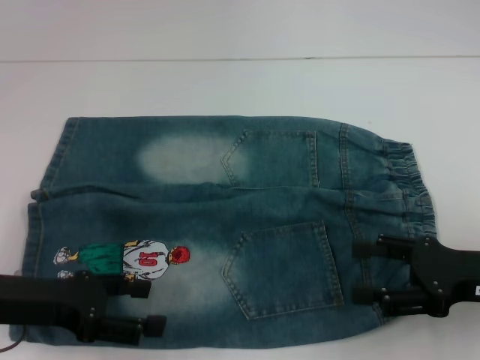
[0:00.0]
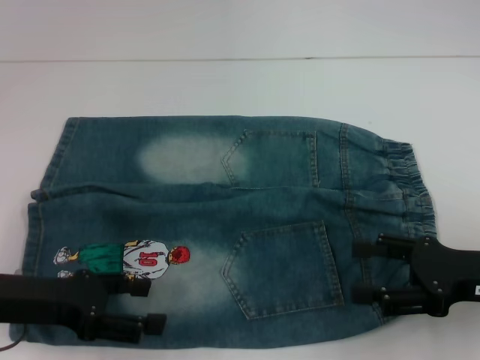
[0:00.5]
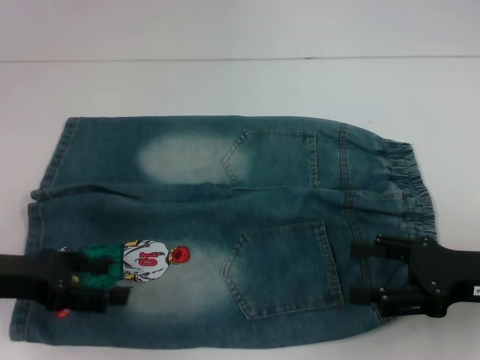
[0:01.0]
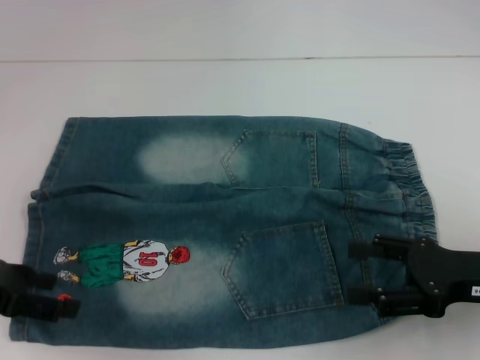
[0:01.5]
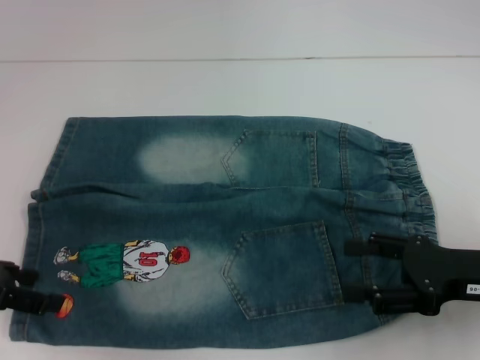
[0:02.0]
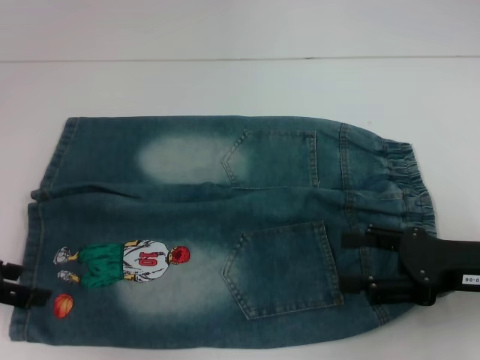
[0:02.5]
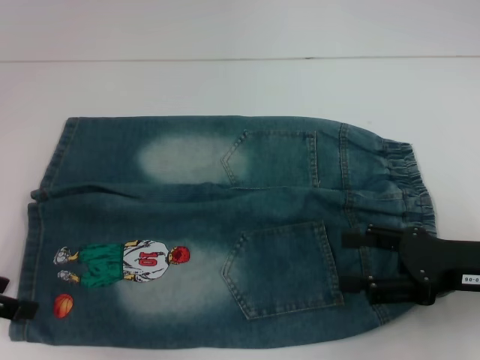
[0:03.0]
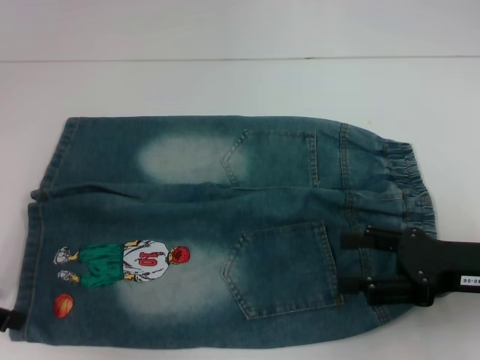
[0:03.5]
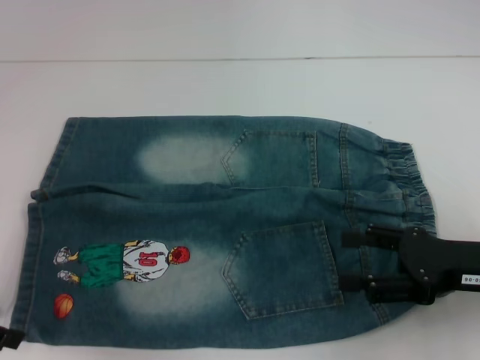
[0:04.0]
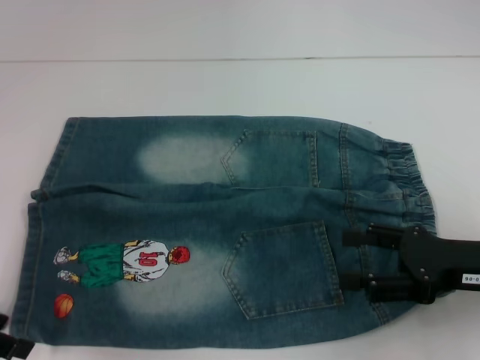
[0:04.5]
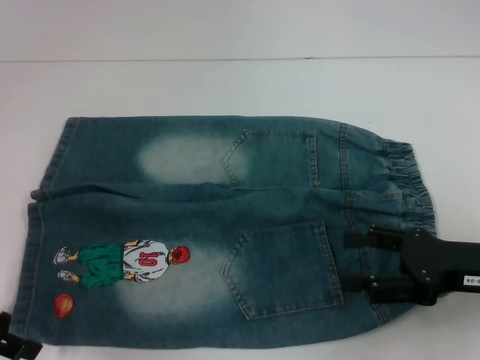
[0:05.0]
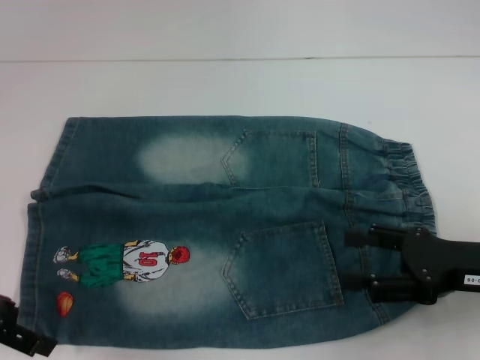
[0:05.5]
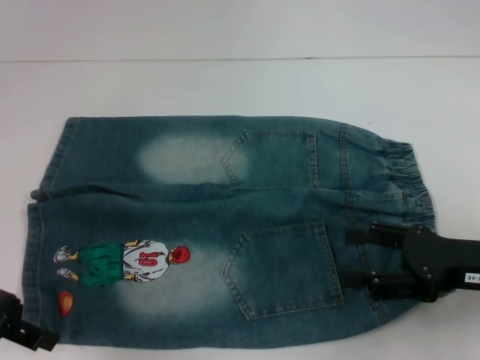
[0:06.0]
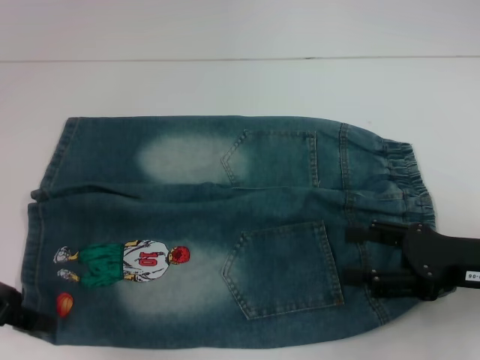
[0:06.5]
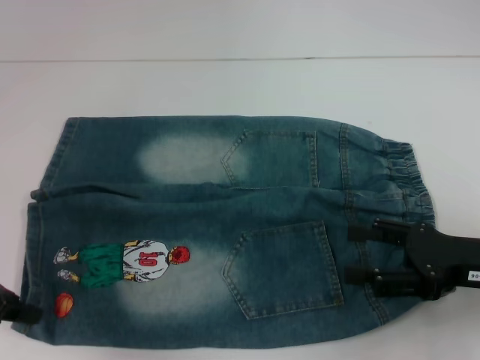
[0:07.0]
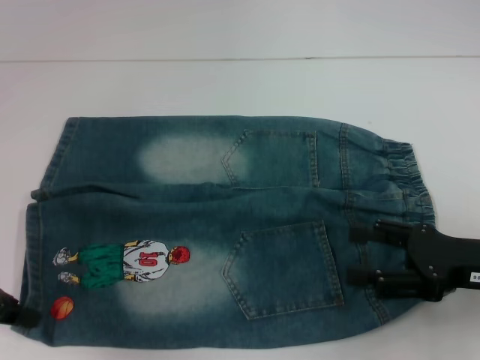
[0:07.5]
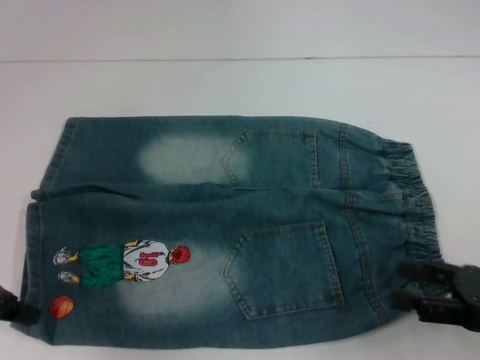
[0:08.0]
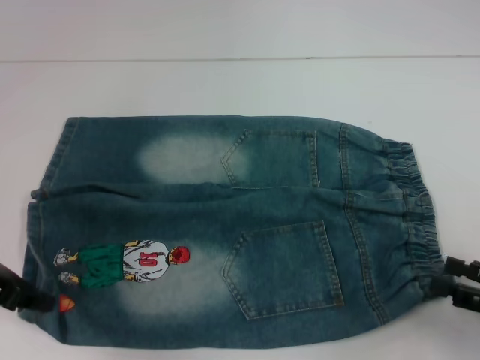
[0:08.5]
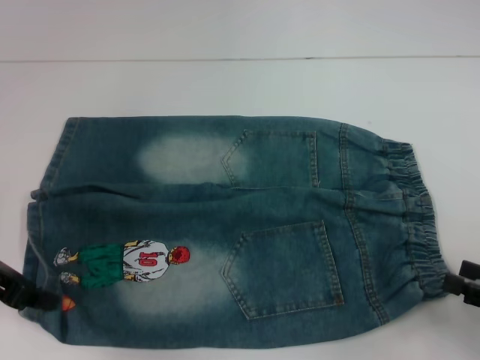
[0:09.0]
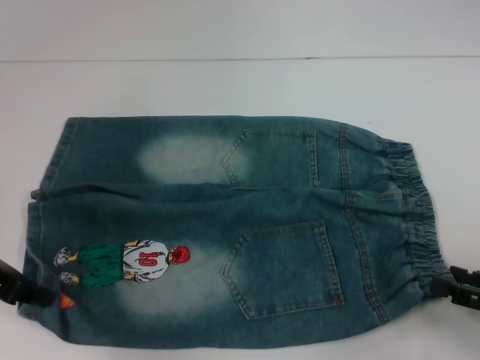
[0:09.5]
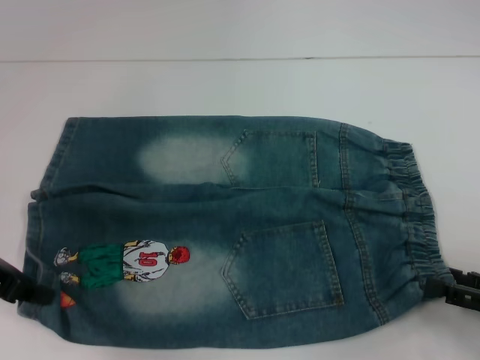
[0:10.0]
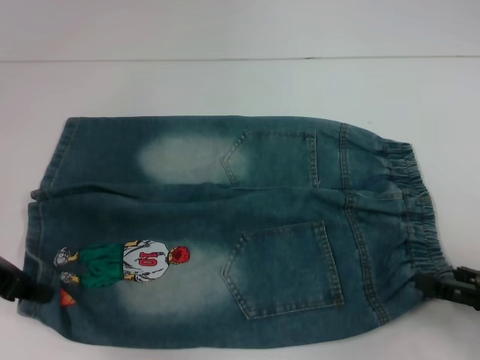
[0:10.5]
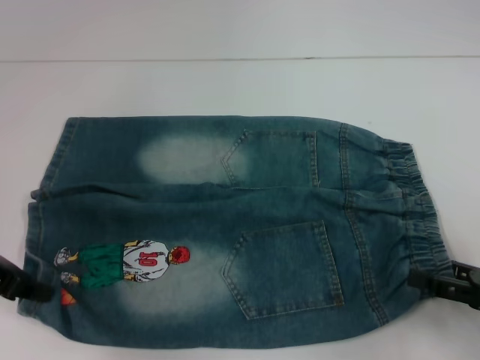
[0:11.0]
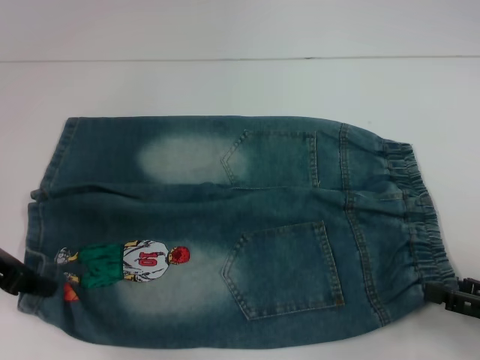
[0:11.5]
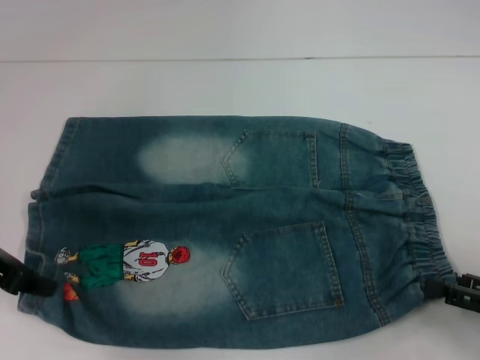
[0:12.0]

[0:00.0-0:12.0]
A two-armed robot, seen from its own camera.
Step, 0:00.0 to 0:06.0: Grab the lower left pant leg with your left hand.
0:00.0 to 0:02.0: The left gripper shifts about 5 cm to the left.
0:02.0 to 0:06.0: The grippers stay close to where they were, moving slightly.
0:06.0 to 0:08.0: The left gripper closes; the right gripper ends up approximately 5 cm from where it was.
0:10.0 to 0:12.0: The grippers make only small movements.

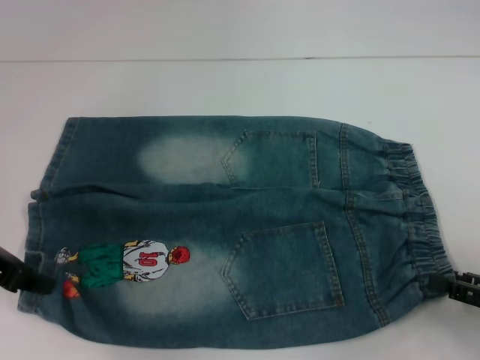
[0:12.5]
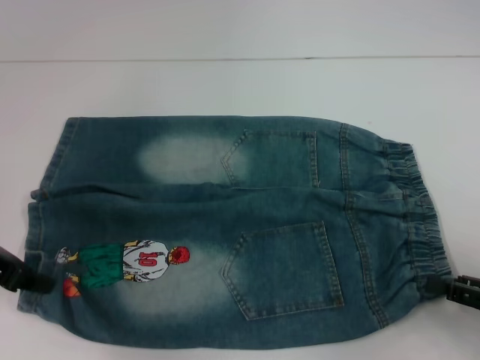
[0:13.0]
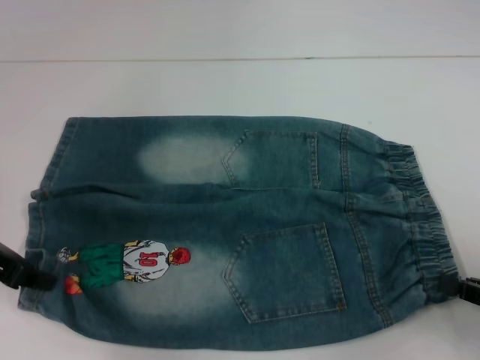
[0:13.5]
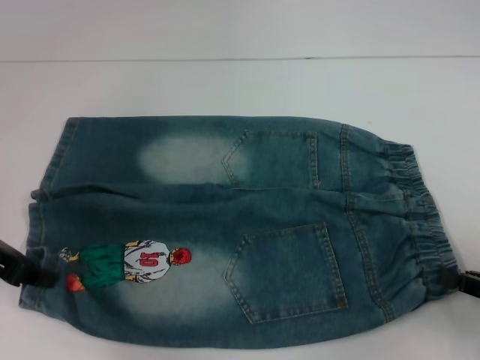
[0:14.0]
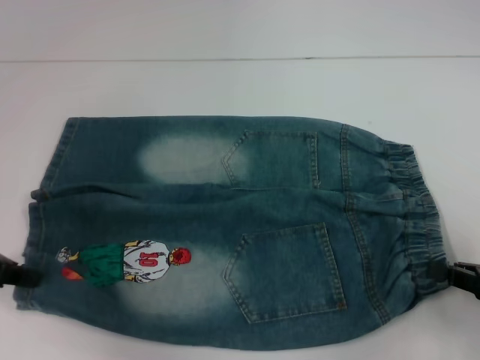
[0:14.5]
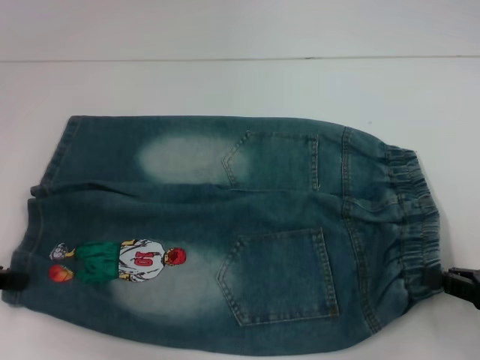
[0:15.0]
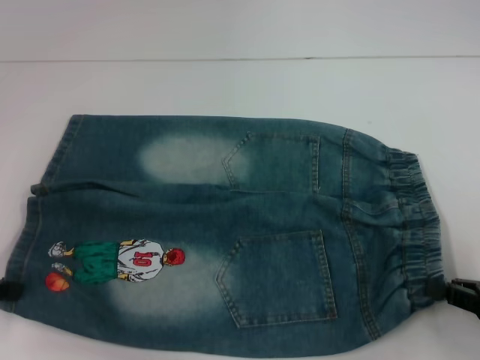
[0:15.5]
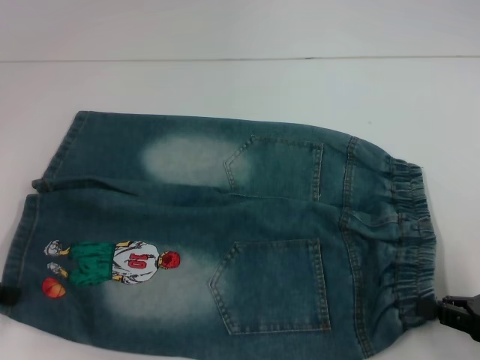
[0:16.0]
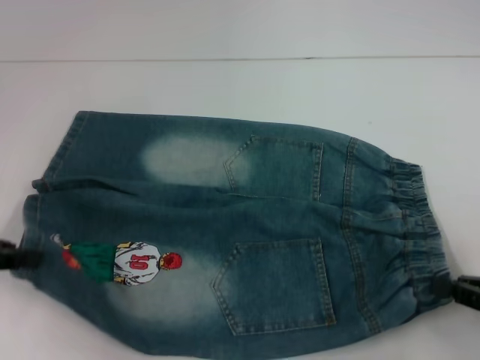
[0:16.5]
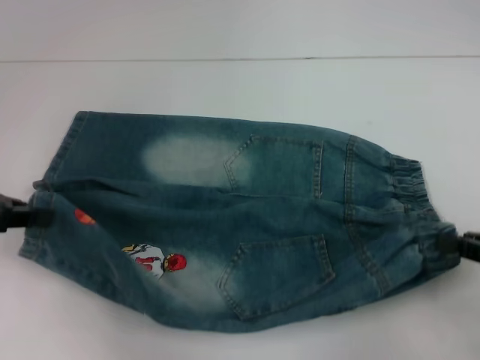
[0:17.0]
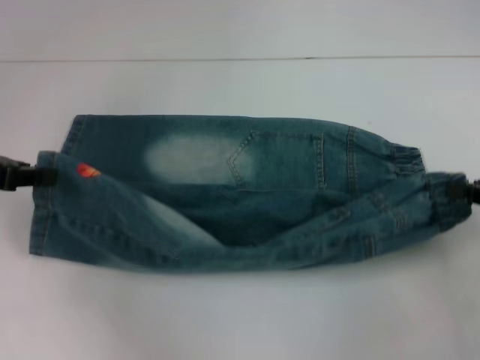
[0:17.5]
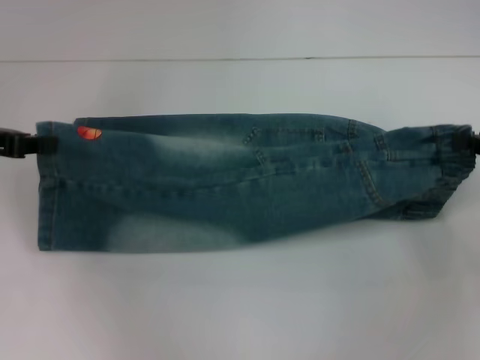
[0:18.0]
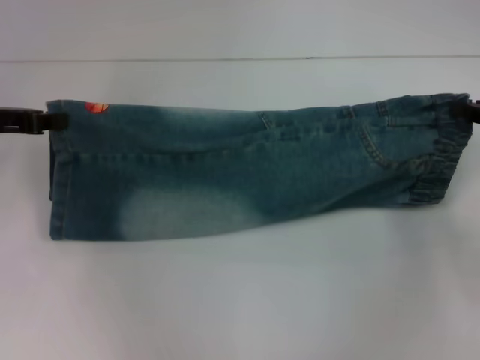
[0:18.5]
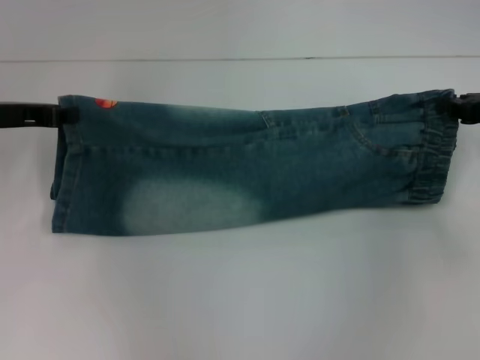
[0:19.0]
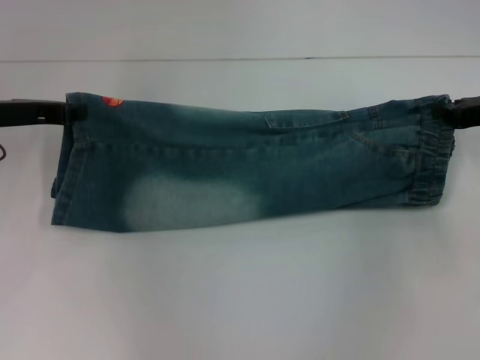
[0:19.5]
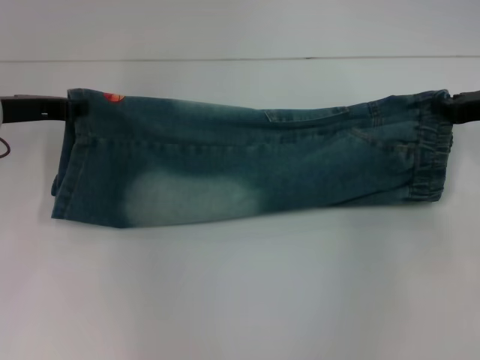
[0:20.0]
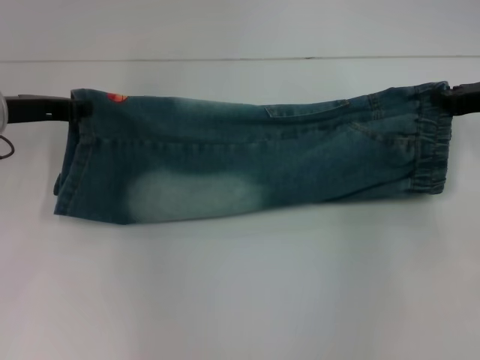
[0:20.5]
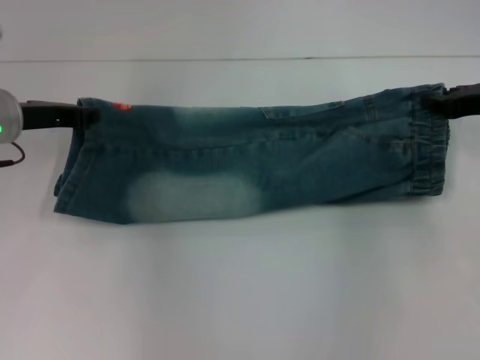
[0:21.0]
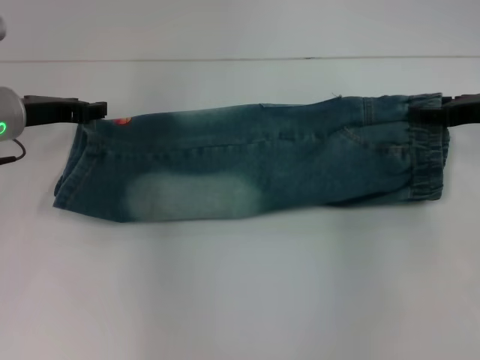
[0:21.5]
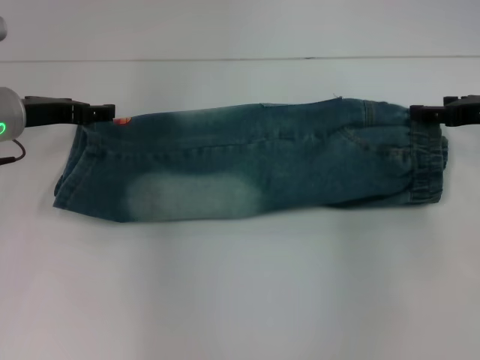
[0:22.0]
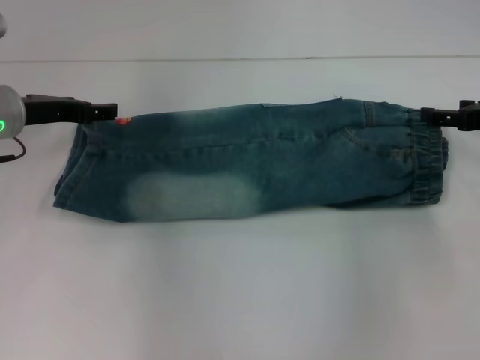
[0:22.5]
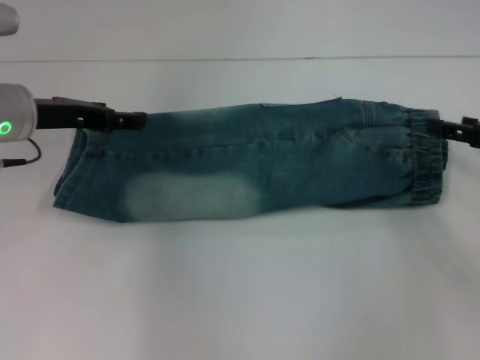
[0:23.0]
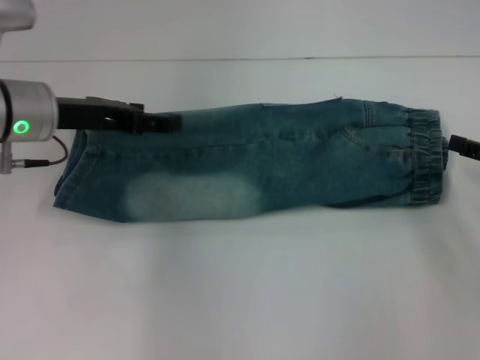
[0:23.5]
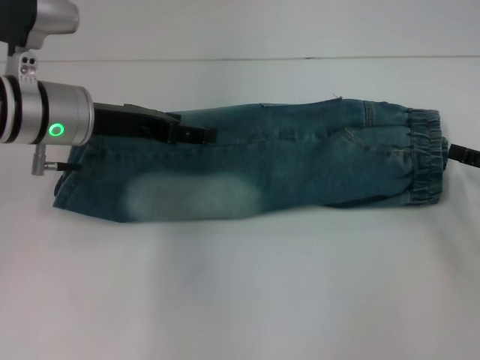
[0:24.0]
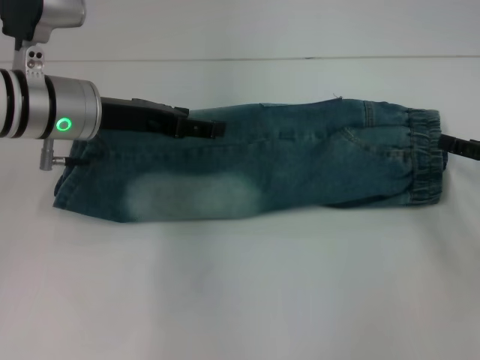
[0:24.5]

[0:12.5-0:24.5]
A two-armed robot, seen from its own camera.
Step, 0:13.5 to 0:22.0: Fold upward with your right hand.
0:12.5 to 0:14.5: The right gripper closes up.
0:14.5 to 0:16.5: The grippers move only a little.
0:16.5 to 0:18.5: The right gripper shifts roughly 15 cm forward and upward; the left gripper heads forward, covering approximately 10 cm.
0:18.5 to 0:20.5: The right gripper ends up approximately 5 cm from where it was; the left gripper moves about 5 cm.
0:20.5 to 0:22.5: The left gripper opens up; the right gripper opens up.
0:22.5 to 0:24.5: The right gripper moves backward, some 5 cm. The left gripper heads to the right, covering approximately 5 cm.

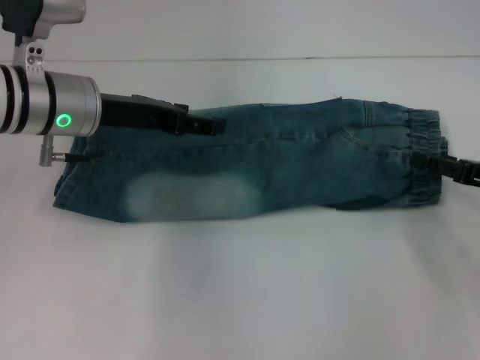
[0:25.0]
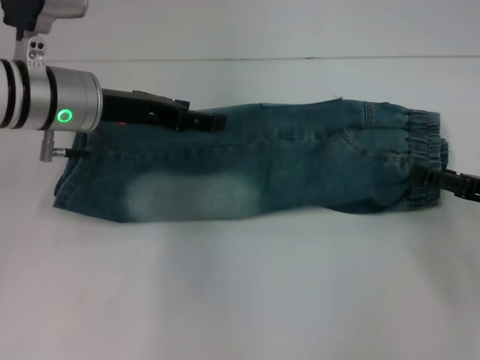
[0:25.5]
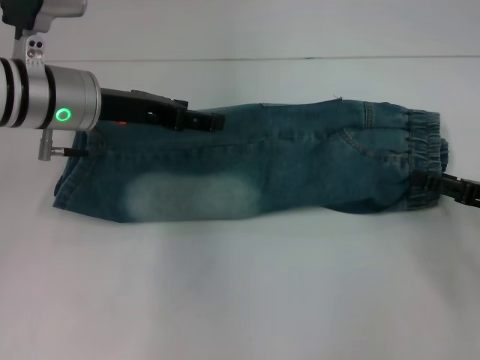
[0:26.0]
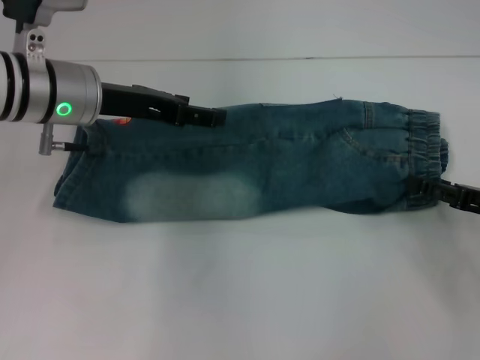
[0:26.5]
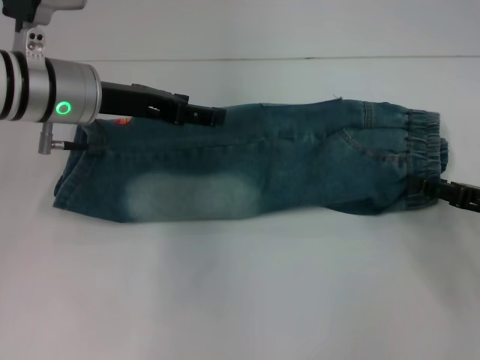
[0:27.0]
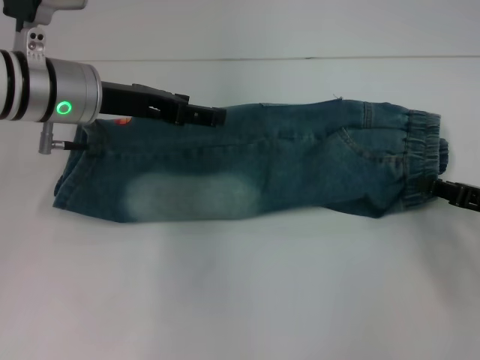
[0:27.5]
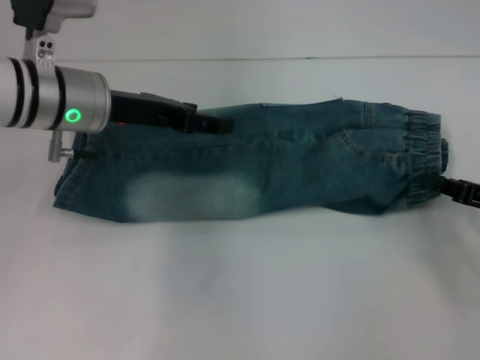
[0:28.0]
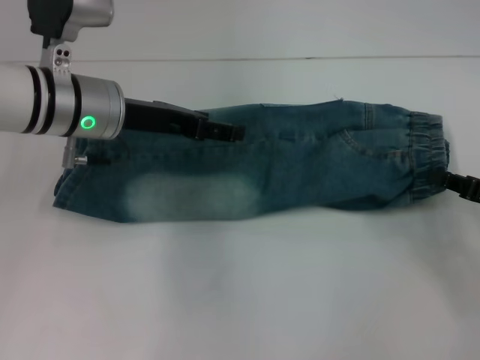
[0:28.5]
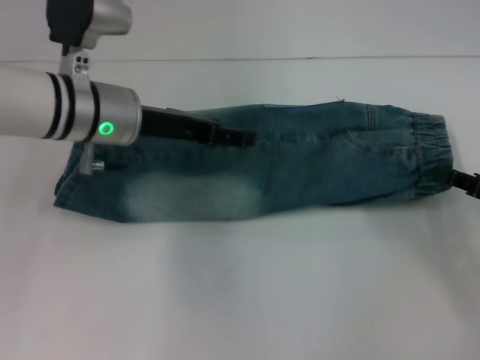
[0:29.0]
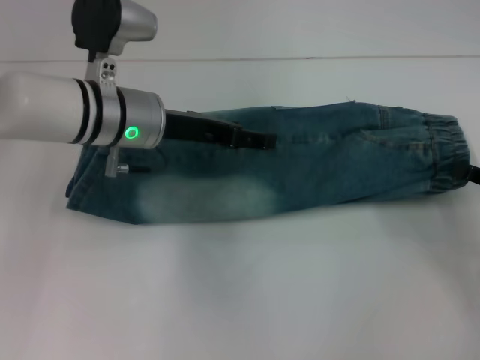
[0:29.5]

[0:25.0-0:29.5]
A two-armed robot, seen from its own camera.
0:25.0 to 0:27.0: The grippers stay close to where they were, moving slightly.
0:27.0 to 0:29.5: The right gripper closes up. Meanwhile the left gripper travels to the right by approximately 5 cm.
